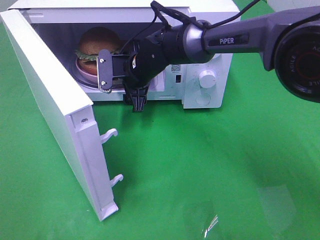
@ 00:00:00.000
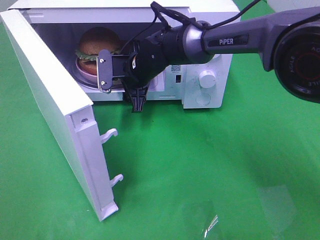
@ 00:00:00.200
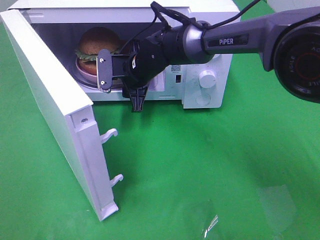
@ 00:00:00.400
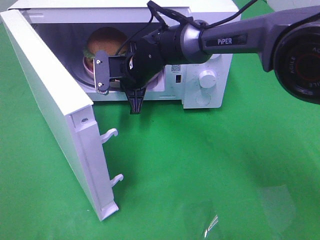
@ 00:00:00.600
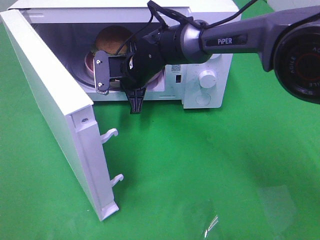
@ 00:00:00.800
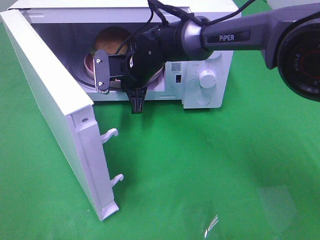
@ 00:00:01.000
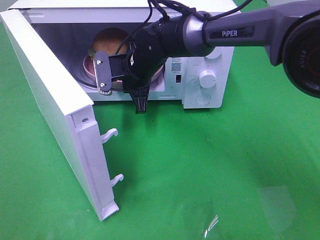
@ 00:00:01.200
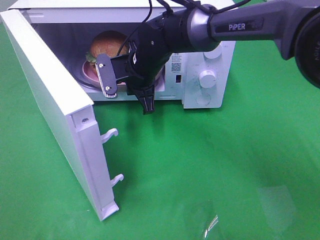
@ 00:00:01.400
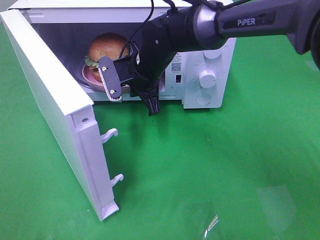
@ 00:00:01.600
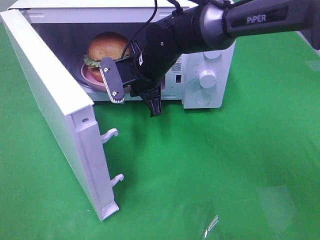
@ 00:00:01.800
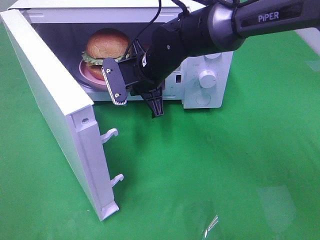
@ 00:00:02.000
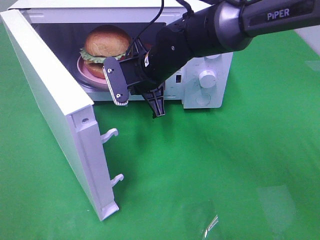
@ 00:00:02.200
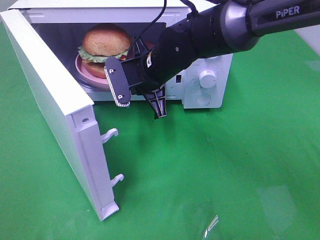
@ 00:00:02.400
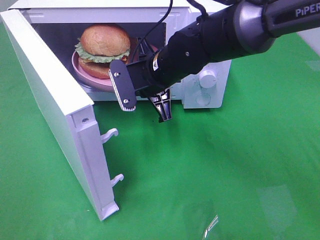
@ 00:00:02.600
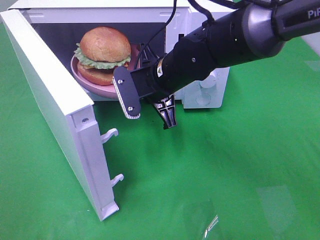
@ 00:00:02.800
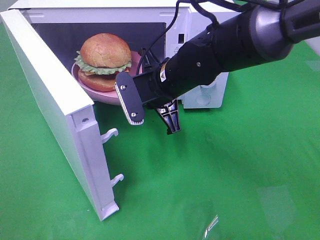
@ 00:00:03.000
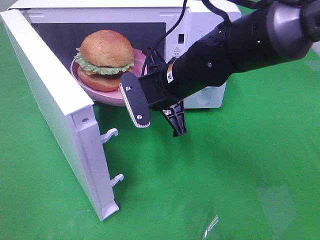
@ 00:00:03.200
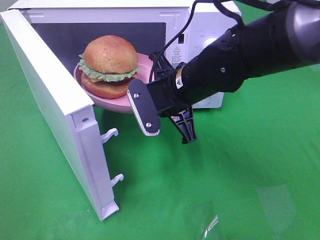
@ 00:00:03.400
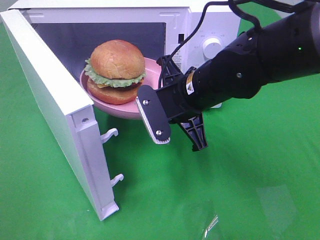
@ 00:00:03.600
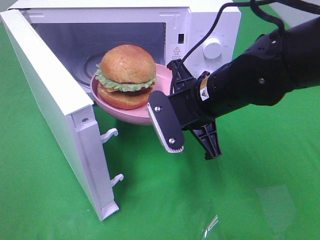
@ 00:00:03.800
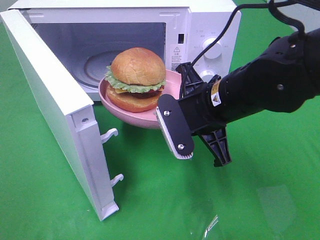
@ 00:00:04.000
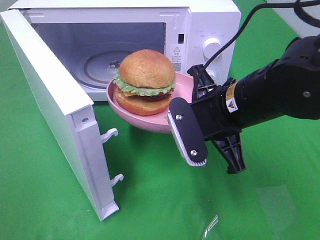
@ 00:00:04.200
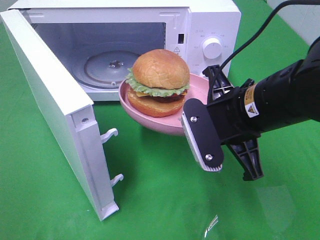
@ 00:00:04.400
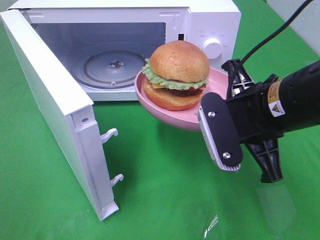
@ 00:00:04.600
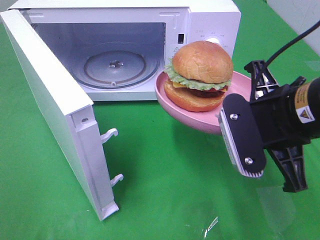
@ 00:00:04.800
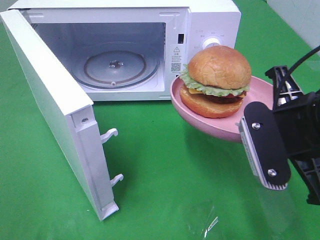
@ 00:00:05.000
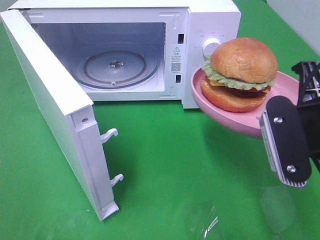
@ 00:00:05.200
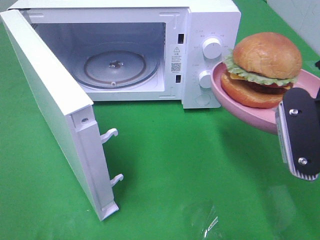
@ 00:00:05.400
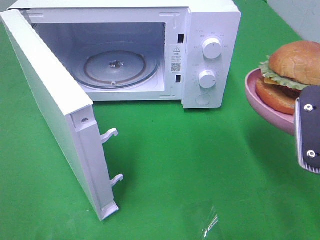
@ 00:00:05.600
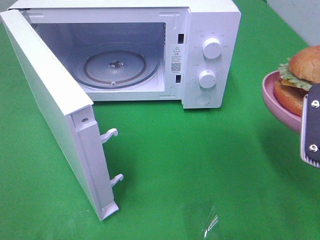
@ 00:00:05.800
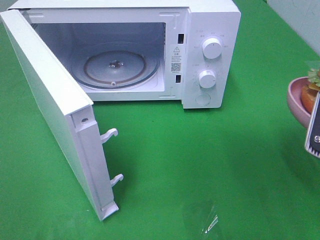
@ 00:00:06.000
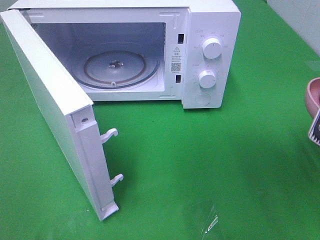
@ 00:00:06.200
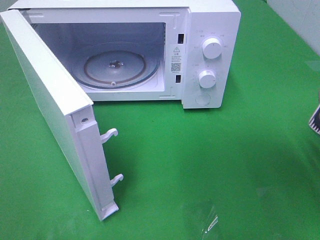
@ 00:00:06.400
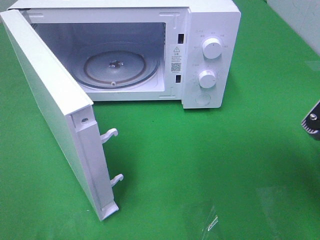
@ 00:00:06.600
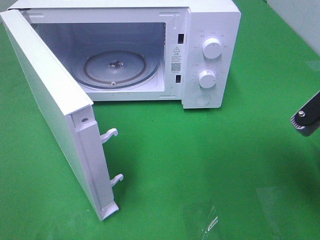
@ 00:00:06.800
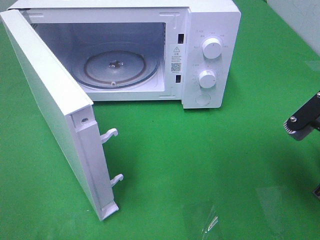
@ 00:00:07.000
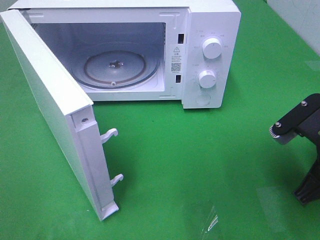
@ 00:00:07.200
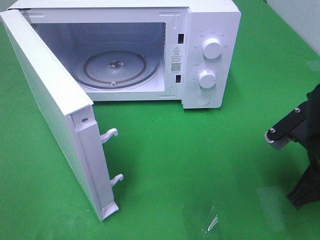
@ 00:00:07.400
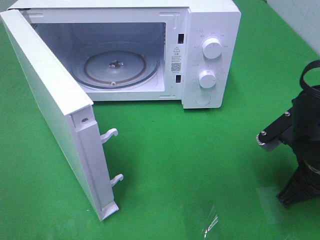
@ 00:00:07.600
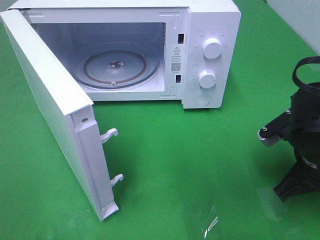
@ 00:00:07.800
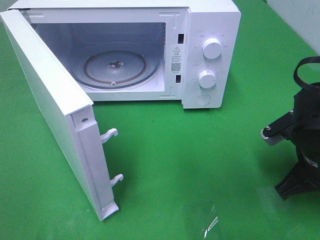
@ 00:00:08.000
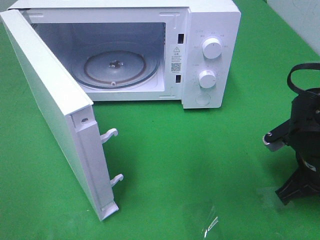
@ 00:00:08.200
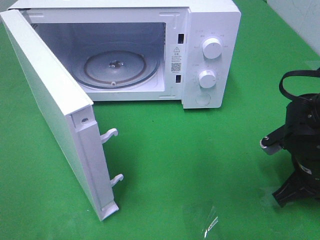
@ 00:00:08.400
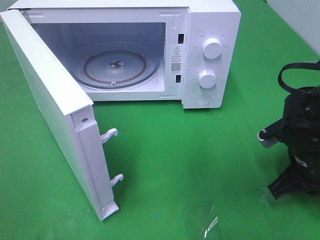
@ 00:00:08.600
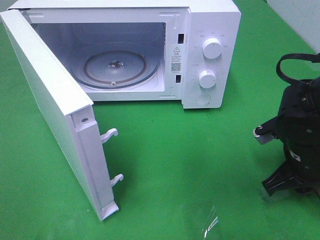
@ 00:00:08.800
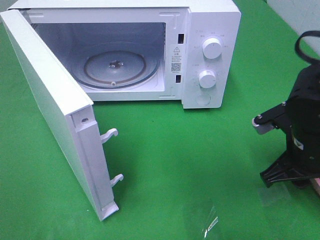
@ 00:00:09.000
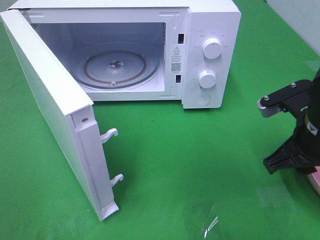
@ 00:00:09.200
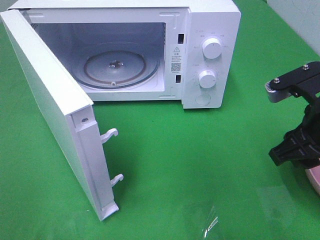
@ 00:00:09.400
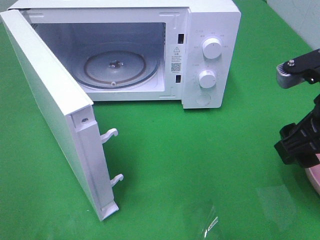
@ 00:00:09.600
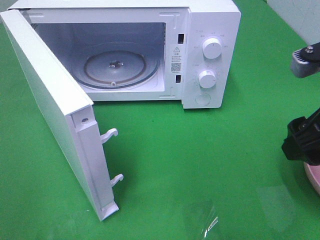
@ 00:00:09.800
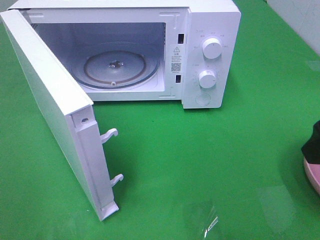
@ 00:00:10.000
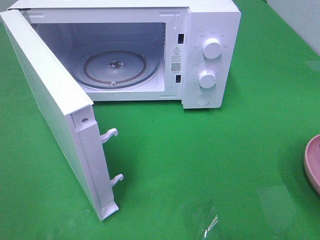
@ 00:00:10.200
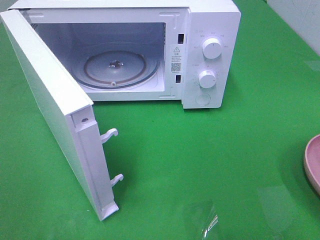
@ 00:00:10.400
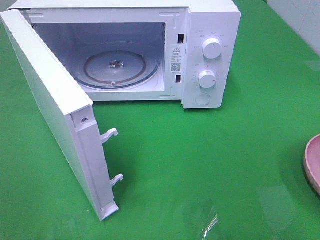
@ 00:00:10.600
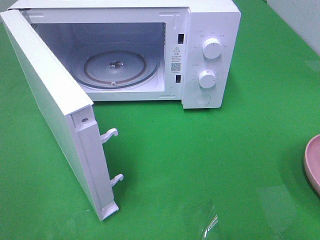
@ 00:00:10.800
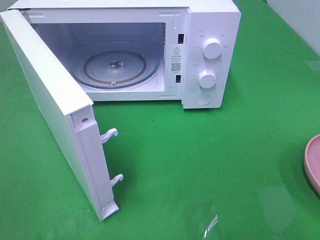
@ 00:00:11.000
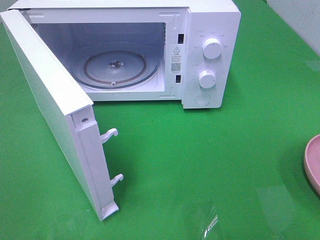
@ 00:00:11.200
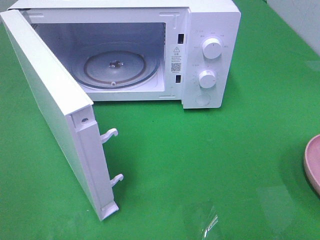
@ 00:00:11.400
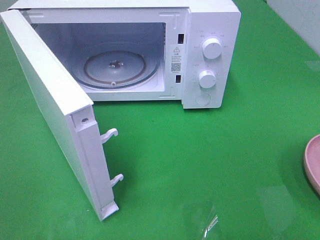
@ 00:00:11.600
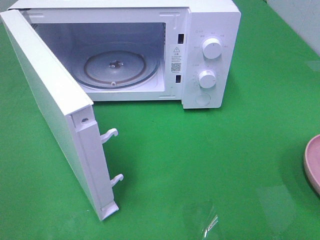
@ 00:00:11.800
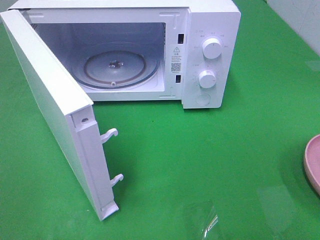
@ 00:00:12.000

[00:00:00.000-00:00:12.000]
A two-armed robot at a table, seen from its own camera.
Task of the whole recording: Heat the burger.
Step, 00:00:01.000 to 00:00:09.000: Right hand: place the plate on the table.
00:00:00.000 to 00:00:01.600: The right gripper closes up.
00:00:01.600 to 00:00:03.000: The right gripper is displaced backward by about 5 cm.
00:00:03.000 to 00:00:04.400: The right gripper heads backward and to the right, covering approximately 15 cm.
00:00:04.400 to 00:00:06.000: The right gripper goes roughly 15 cm to the right and backward.
00:00:06.000 to 00:00:07.600: The right gripper travels downward by some 10 cm.
00:00:07.600 to 00:00:09.000: The right gripper opens its fingers.
00:00:09.000 to 00:00:10.400: The right gripper is displaced upward and backward by some 20 cm, and opens its fingers.

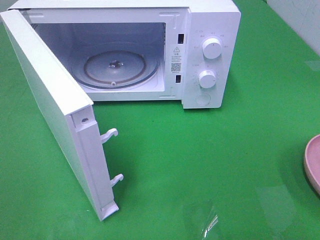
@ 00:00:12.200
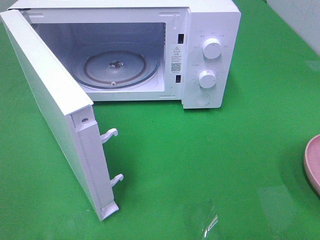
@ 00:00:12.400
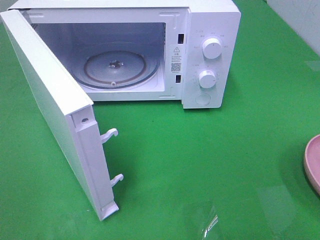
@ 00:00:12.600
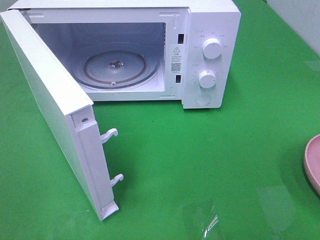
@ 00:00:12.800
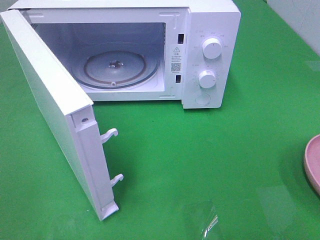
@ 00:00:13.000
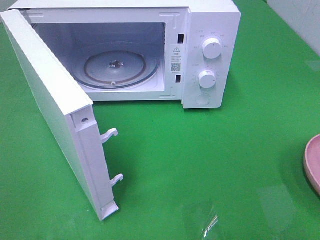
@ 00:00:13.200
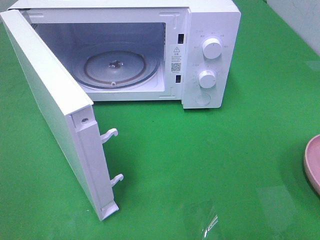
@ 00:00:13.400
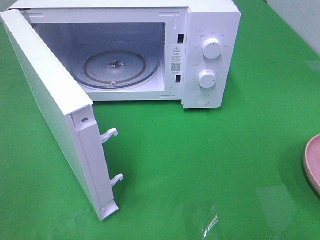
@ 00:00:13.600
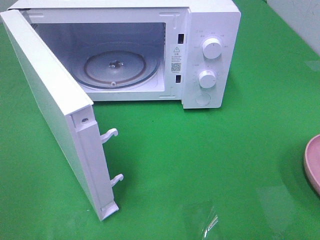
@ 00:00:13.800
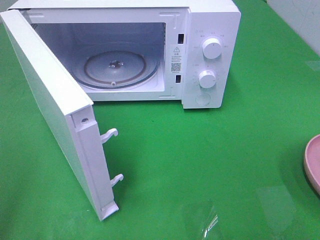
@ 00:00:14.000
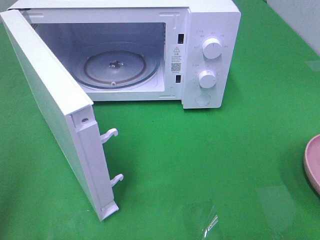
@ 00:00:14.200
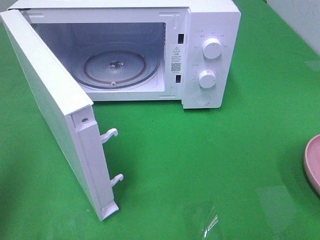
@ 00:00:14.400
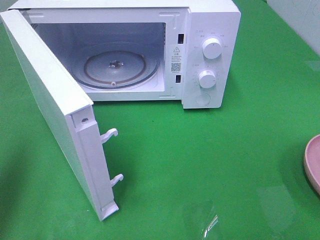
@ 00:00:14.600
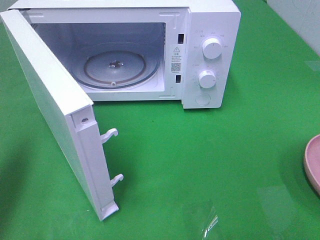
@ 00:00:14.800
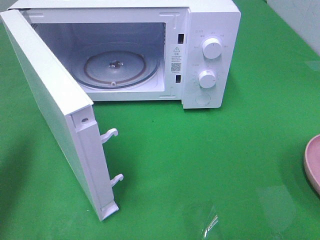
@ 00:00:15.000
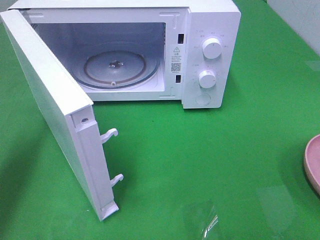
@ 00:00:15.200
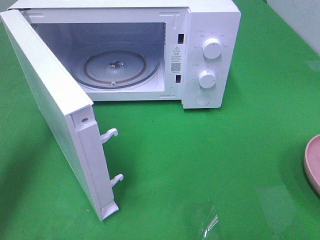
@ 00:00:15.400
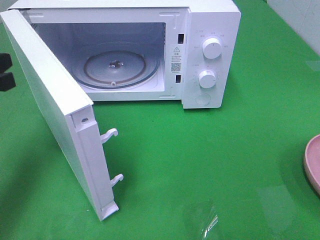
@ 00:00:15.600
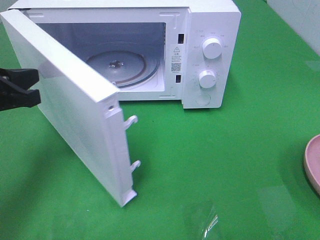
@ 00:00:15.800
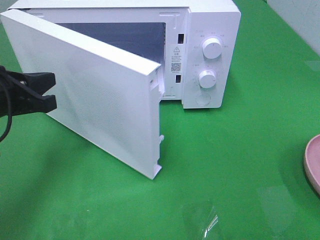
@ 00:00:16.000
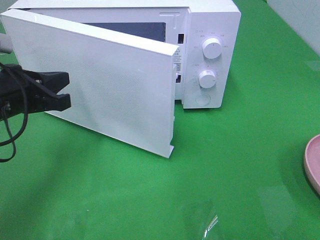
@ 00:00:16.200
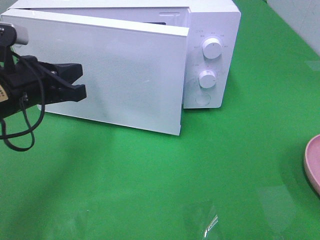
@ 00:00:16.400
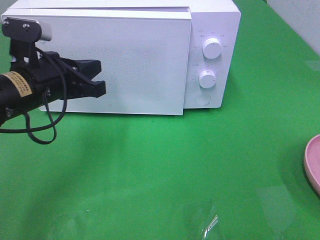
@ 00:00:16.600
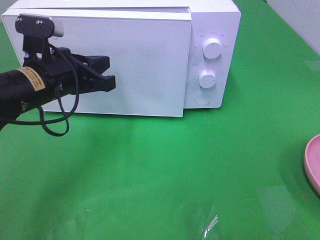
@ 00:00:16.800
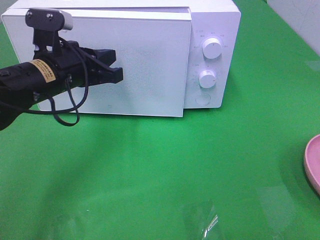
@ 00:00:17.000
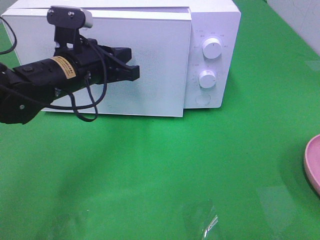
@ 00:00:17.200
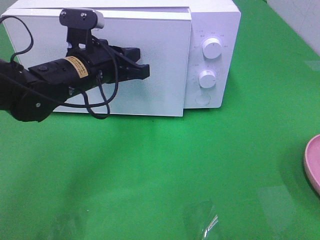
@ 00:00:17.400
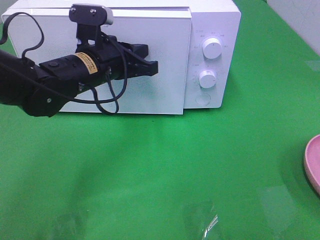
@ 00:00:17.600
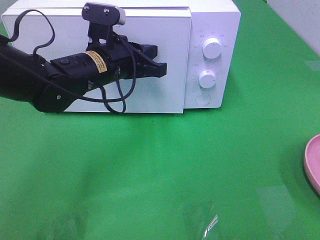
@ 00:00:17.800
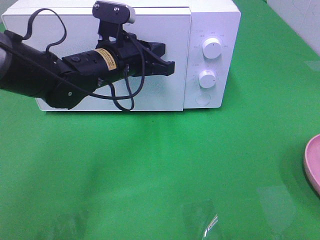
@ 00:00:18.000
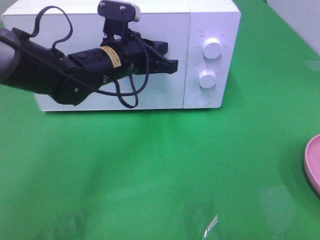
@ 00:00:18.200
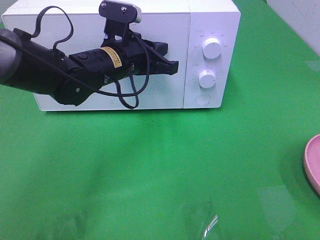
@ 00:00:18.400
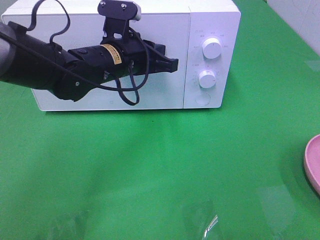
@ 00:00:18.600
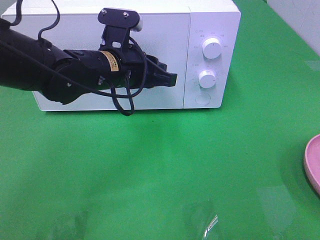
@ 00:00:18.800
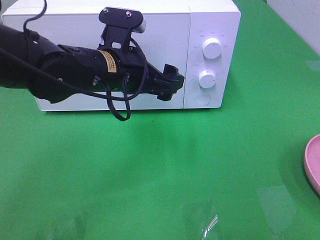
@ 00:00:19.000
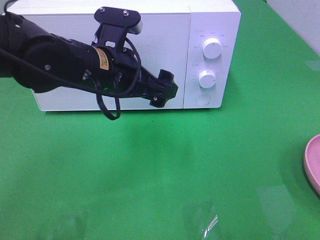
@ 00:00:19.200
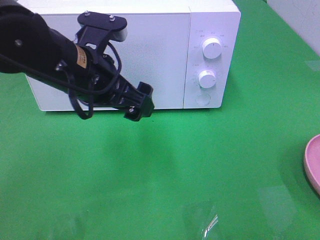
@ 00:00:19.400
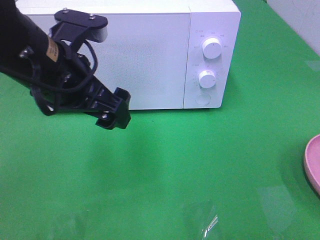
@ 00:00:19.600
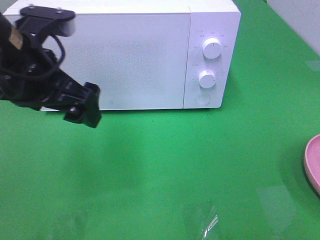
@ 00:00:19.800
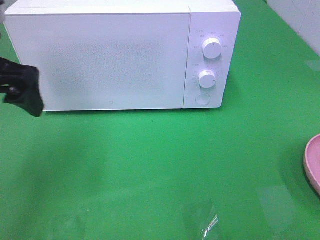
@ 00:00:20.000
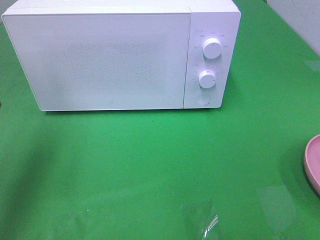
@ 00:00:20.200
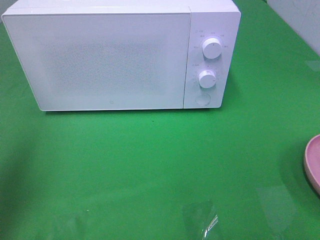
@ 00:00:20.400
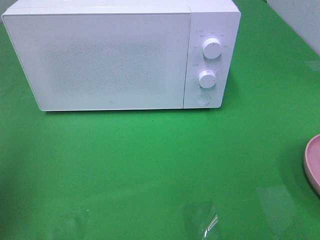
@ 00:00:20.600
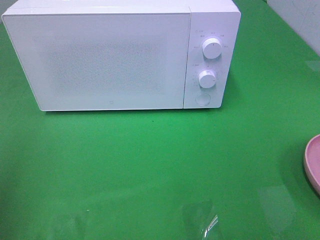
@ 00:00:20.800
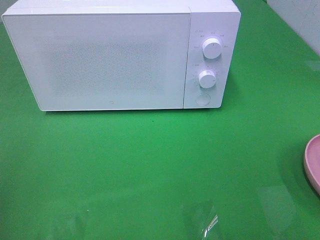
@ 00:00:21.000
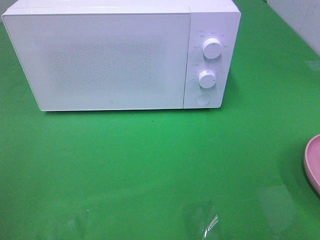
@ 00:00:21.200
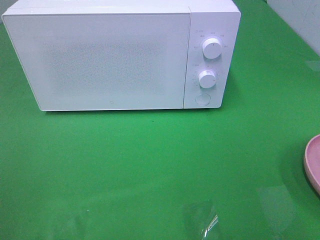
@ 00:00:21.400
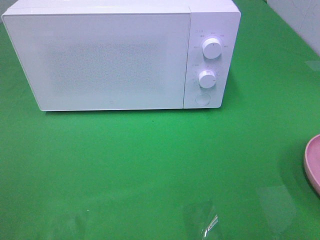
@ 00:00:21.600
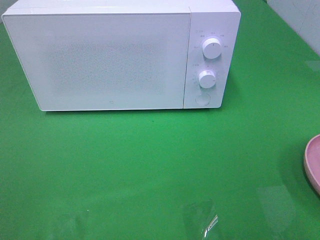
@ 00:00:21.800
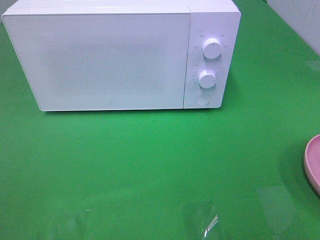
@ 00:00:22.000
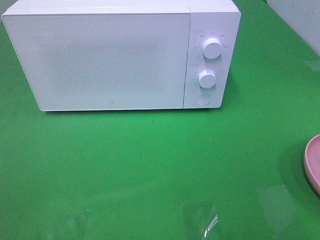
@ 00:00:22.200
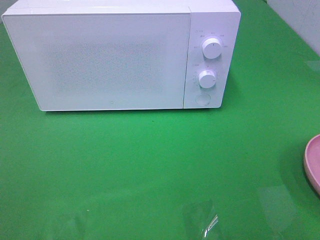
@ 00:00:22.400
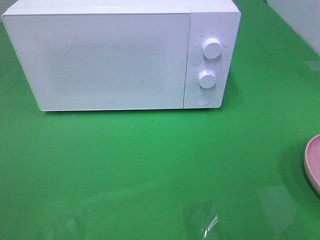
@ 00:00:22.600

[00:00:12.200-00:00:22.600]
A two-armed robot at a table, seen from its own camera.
Task of the whole recording: Heat the burger.
Step, 00:00:12.200 to 00:00:19.400: Left hand: close the microwave door.
00:00:13.600 to 00:00:15.200: The left gripper heads forward, covering roughly 25 cm, and closes its fingers.
00:00:15.200 to 00:00:16.600: The left gripper shifts some 15 cm to the right and downward.
00:00:16.600 to 00:00:18.200: The left gripper shifts about 15 cm to the right and forward.
00:00:18.200 to 00:00:19.600: The left gripper is displaced backward, upward and to the left by about 15 cm, and opens up.
00:00:19.600 to 00:00:21.200: The left gripper is displaced to the left and backward by approximately 25 cm.
